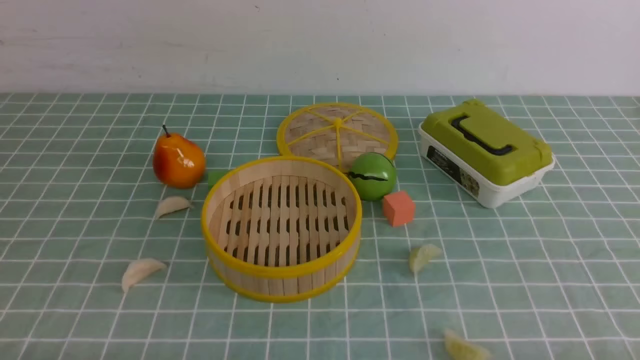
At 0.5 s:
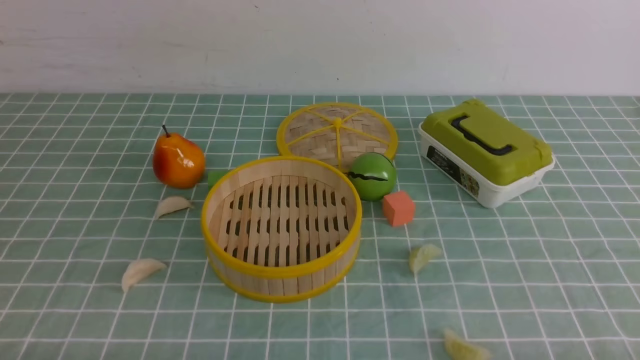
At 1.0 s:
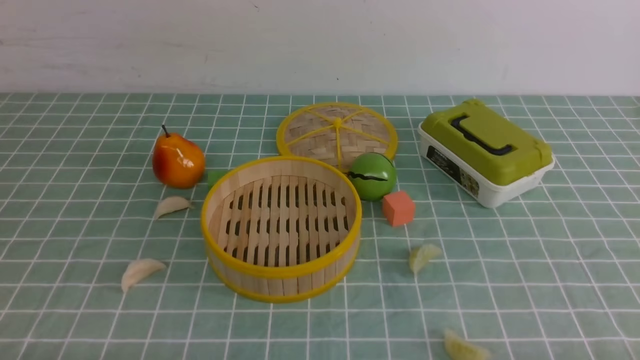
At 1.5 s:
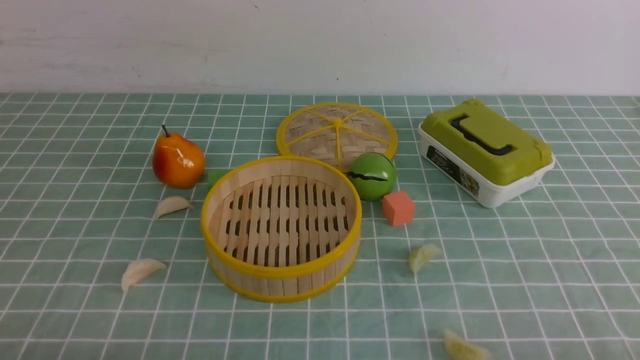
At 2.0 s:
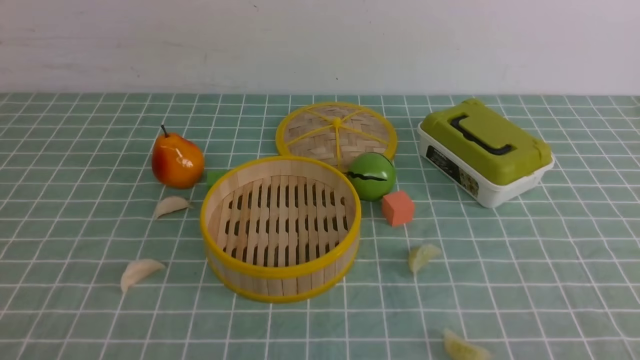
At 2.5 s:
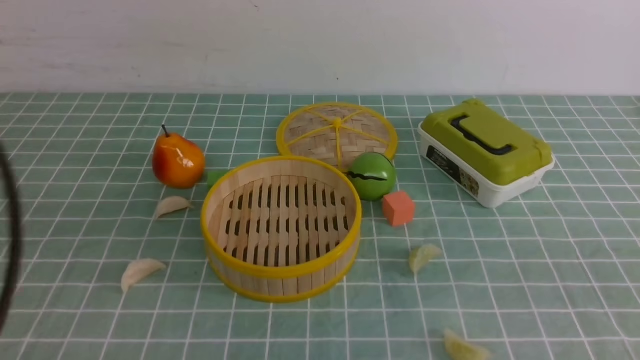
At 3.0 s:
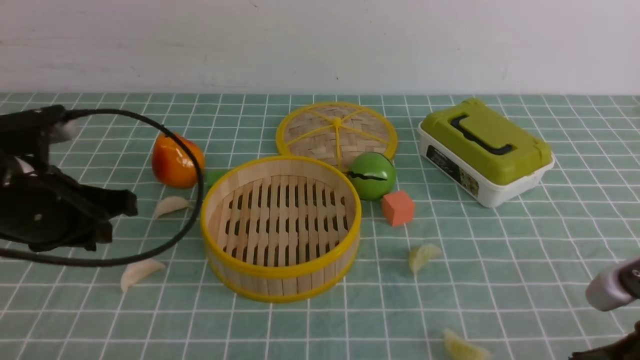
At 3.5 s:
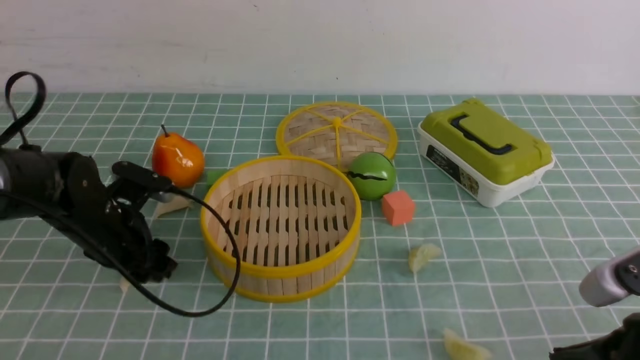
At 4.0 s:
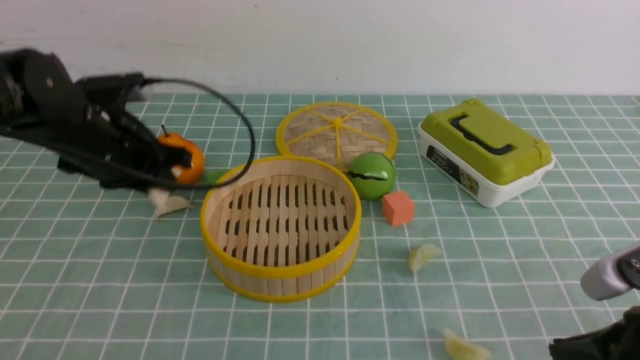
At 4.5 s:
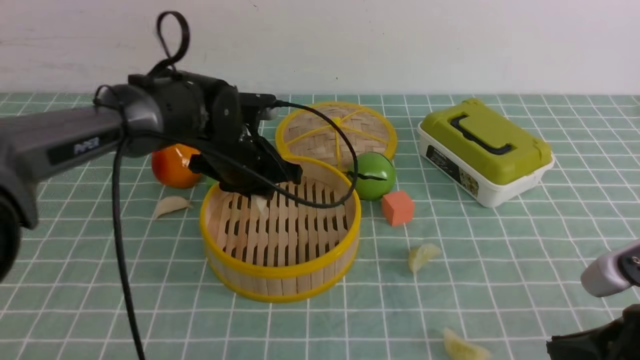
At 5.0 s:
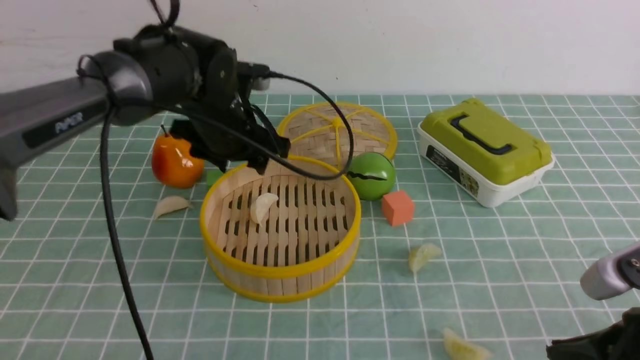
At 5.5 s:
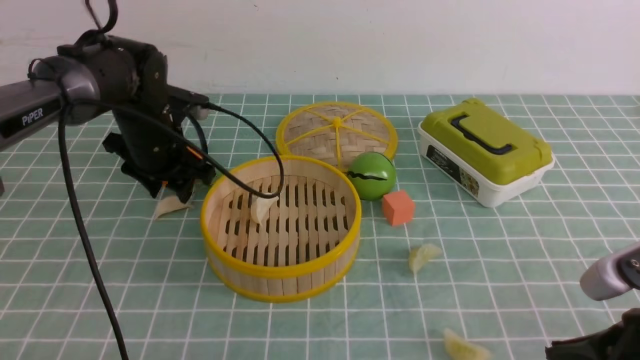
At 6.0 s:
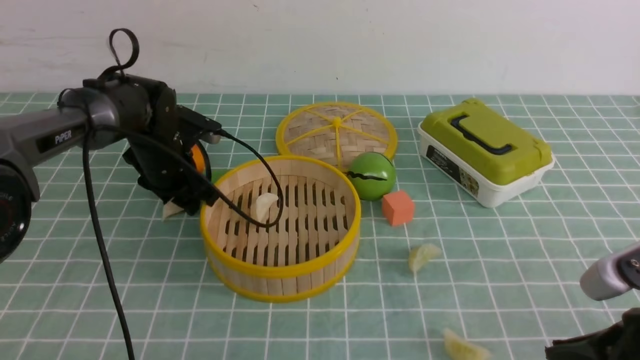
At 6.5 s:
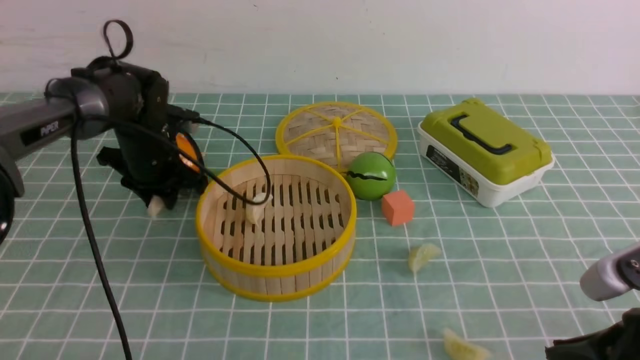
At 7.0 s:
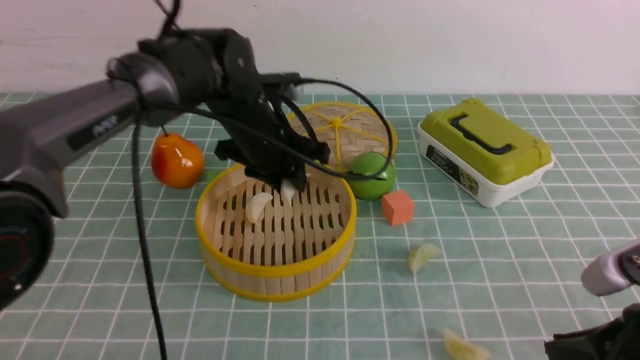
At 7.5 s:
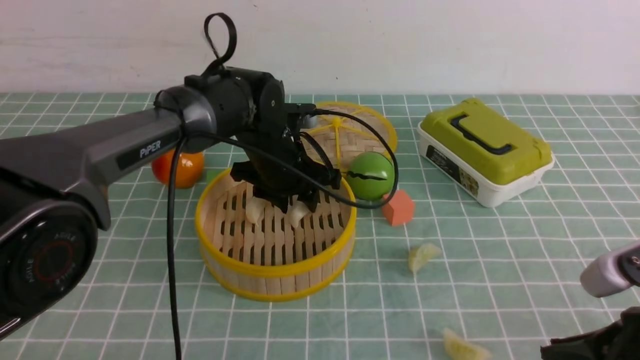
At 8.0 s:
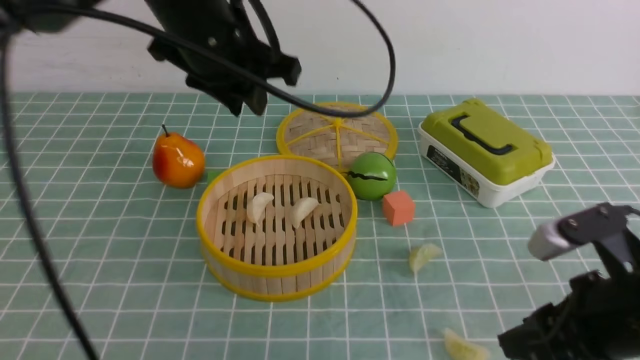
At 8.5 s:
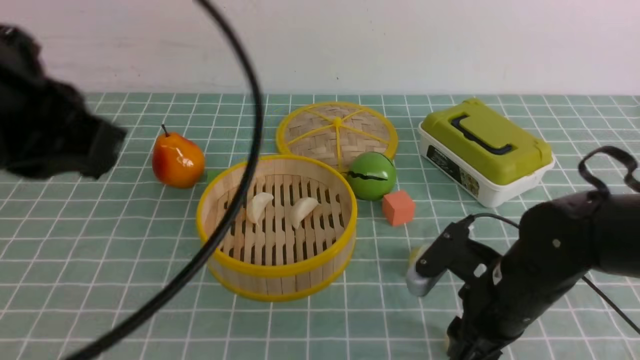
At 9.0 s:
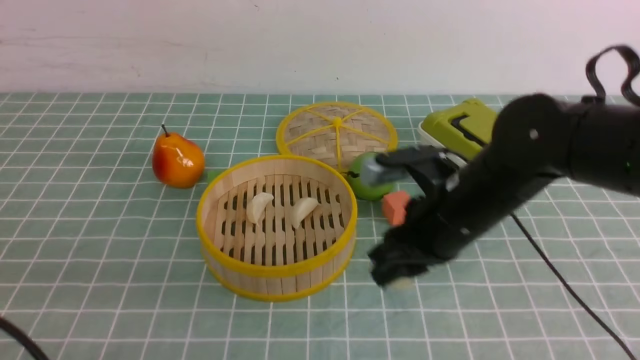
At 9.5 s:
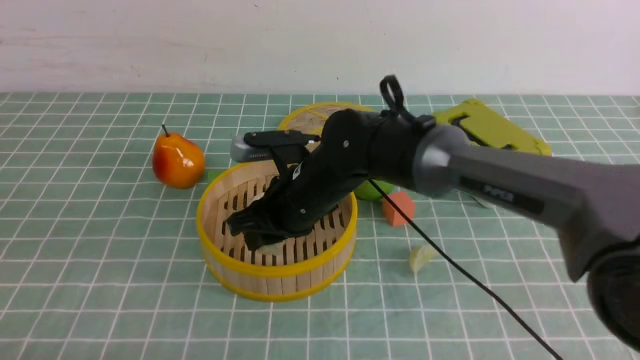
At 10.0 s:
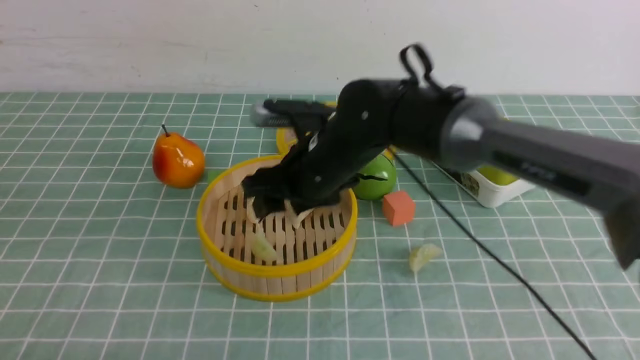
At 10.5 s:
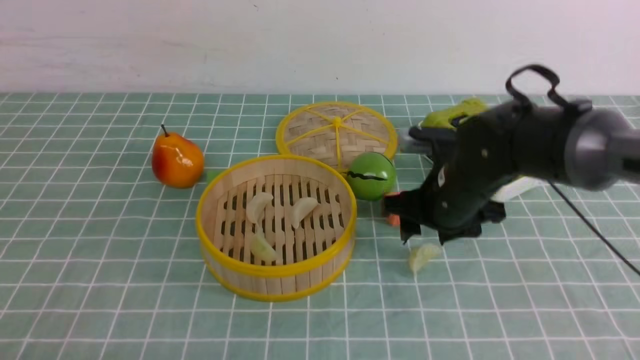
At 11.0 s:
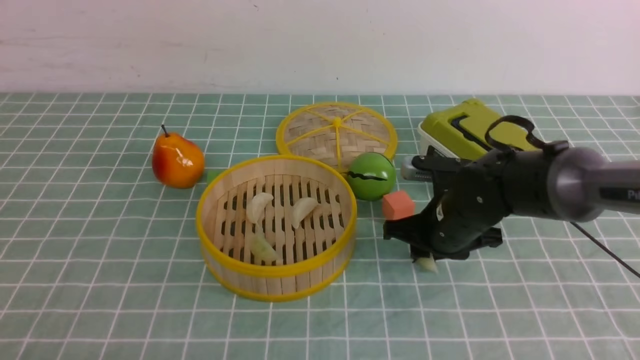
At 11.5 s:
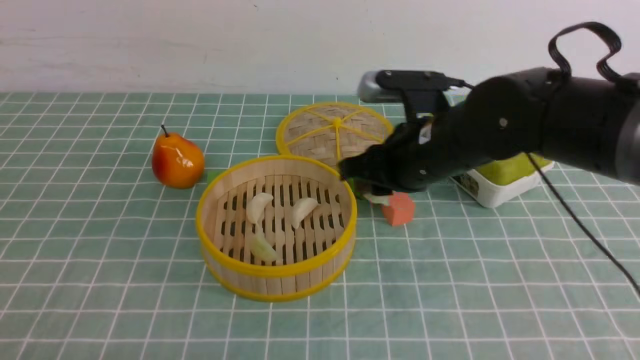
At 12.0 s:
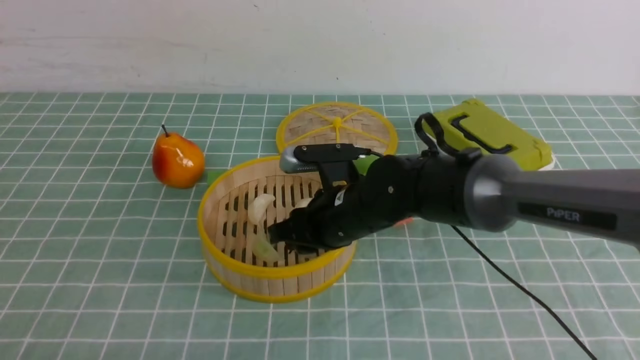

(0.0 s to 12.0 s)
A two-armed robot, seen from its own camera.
Task of the whole recording: put the dumplings into the steamer on the table with the blue tablecloth.
Step, 0.0 s - 3.5 s: use the left arm to grab a dumpling.
Step, 4.0 s - 5.0 s: use the left arm to put the dumpling into the steamer.
Step, 5.5 s - 6.0 s: use the left arm to grab a dumpling.
Step, 6.5 s - 7.5 s: use the left arm to put the dumpling into the steamer.
Step, 8.0 s - 8.5 s: use the right arm to grab a dumpling.
Step, 9.0 s - 10.0 s: use the right arm to put the dumpling into the steamer.
Step, 10.5 s - 11.0 s: use the right arm to grab a dumpling.
2.0 s - 4.0 s: The right gripper travels forward and to the left by about 10 cm. The left gripper heads forward, covering roughly 35 cm, and opens, then closes again.
4.0 s - 6.0 s: The left gripper goes some 15 cm forward and downward.
6.0 s - 8.0 s: The left gripper travels upward, backward and to the right by some 25 cm, while the right gripper changes place by about 5 cm, and opens its fingers.
8.0 s - 10.0 s: The right gripper goes some 30 cm to the left and forward; the left gripper shifts approximately 35 cm backward and to the left, and closes its fingers.
10.0 s - 12.0 s: The right gripper reaches approximately 10 cm to the right, then returns.

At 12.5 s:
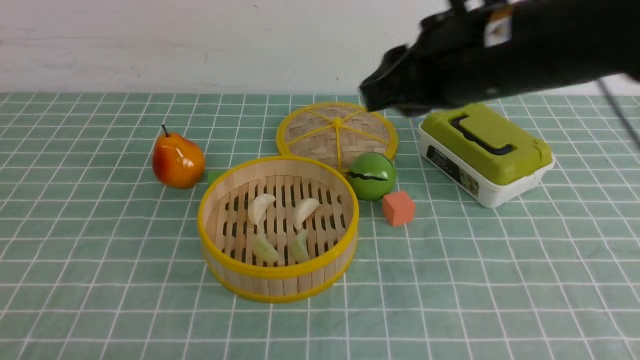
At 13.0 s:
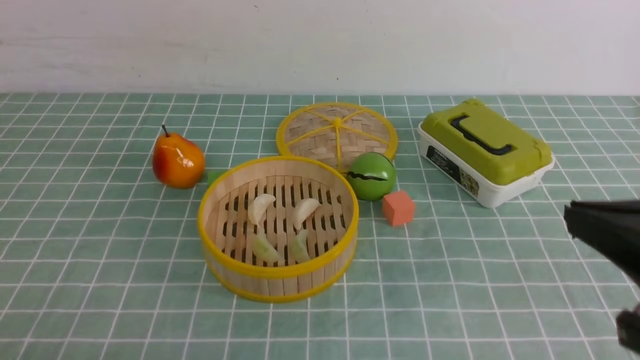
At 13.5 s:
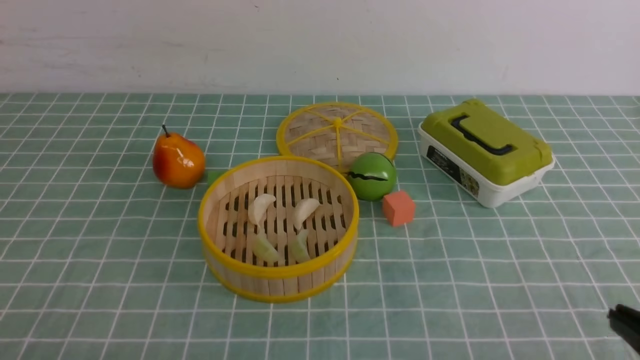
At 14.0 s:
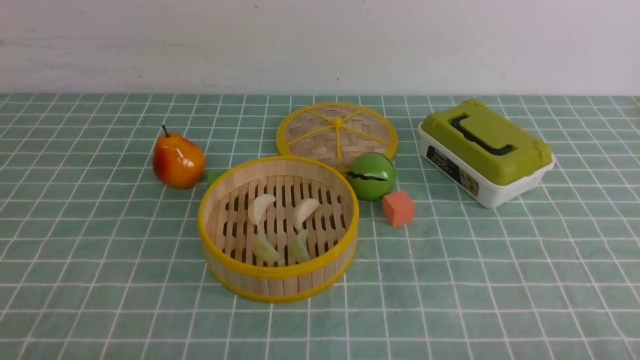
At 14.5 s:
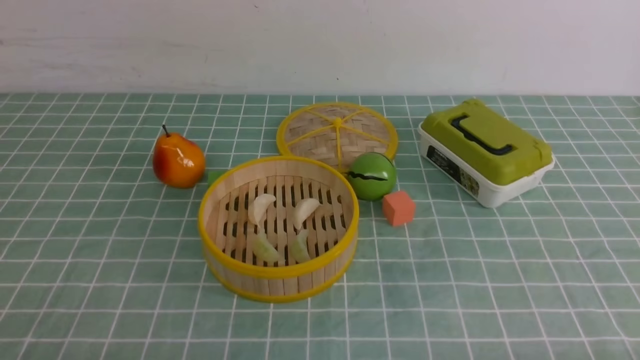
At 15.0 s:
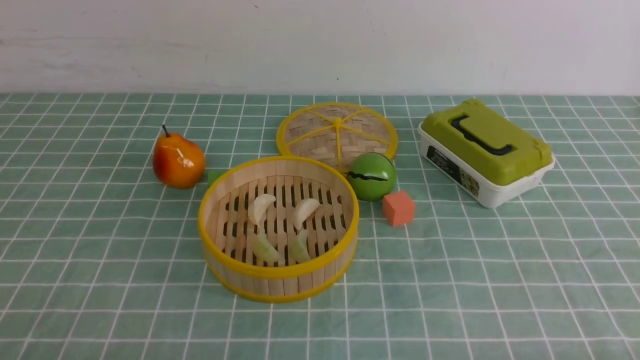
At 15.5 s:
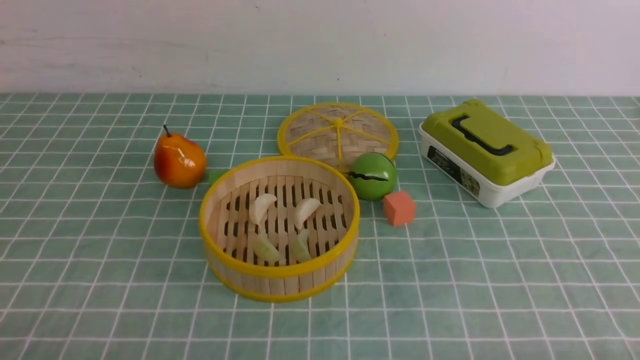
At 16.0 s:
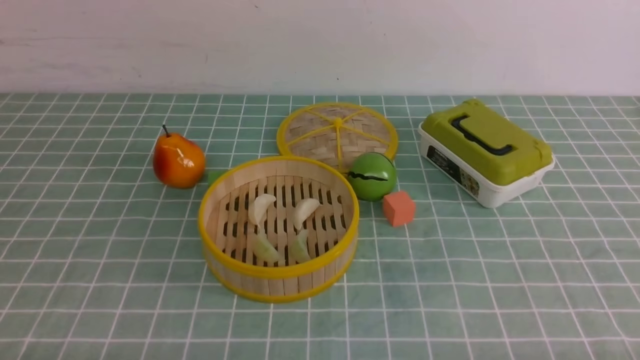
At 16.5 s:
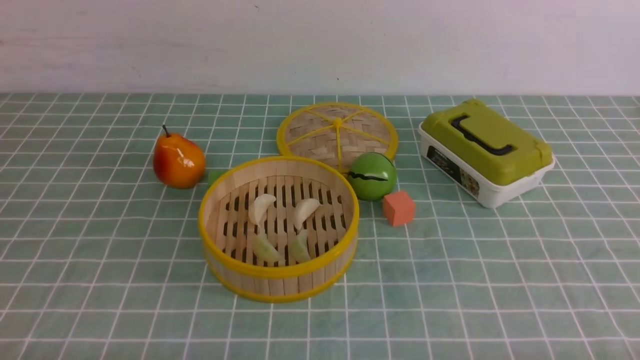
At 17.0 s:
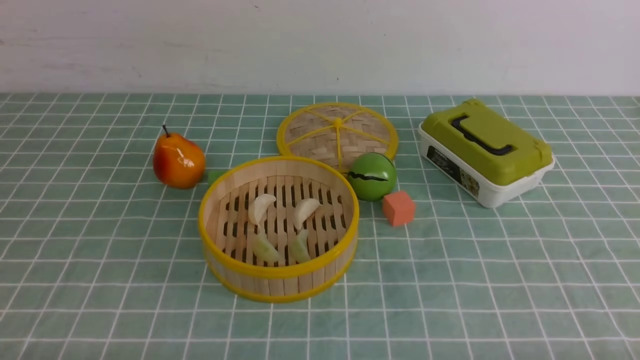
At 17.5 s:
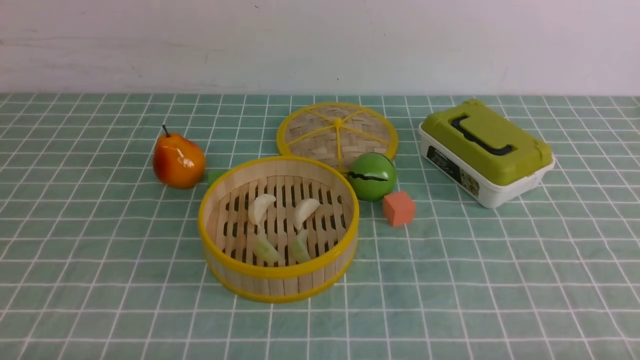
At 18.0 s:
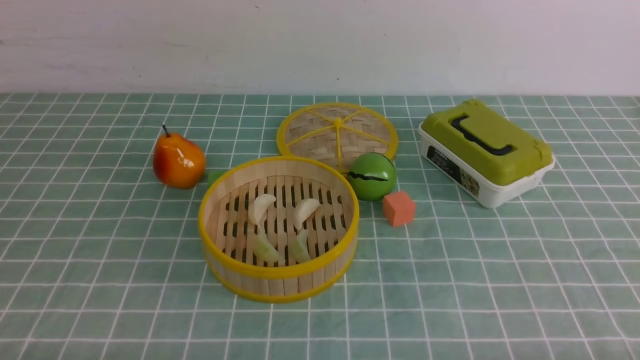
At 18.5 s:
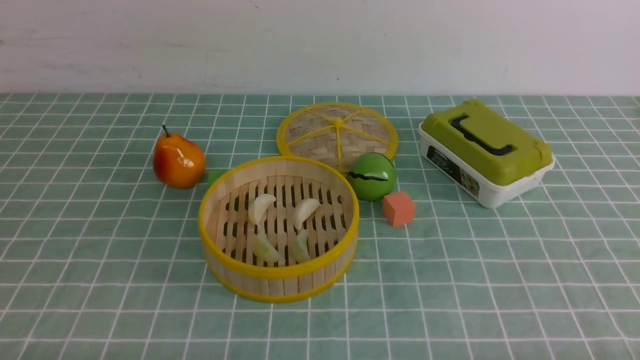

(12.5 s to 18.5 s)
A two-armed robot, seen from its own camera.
Task of the whole recording: put the dumplings into the steamer on the table with the blue tablecloth.
12.5 s - 14.5 s: The right gripper goes approximately 35 cm downward, backward and to the right, and closes.
16.5 s - 18.5 s: Both grippers stay put.

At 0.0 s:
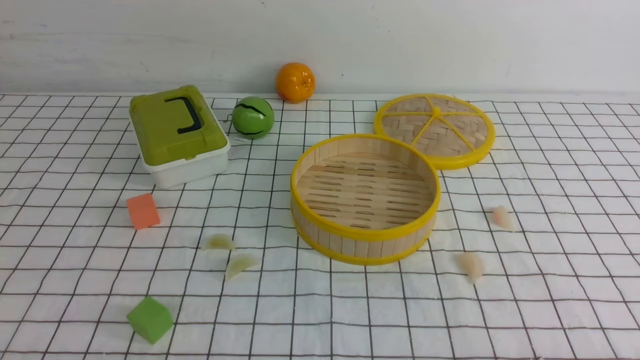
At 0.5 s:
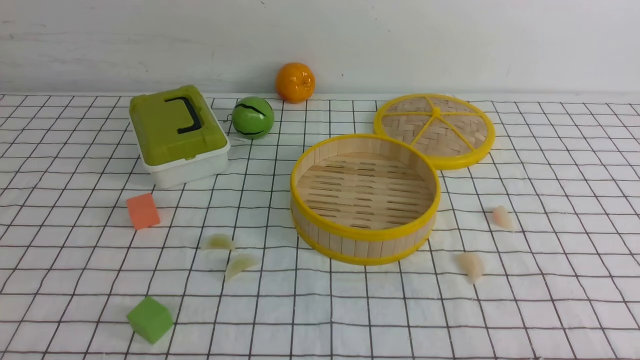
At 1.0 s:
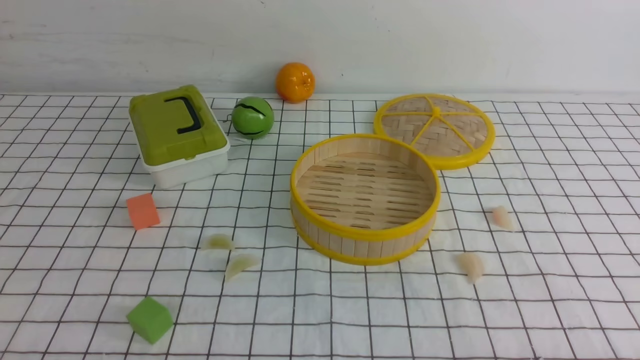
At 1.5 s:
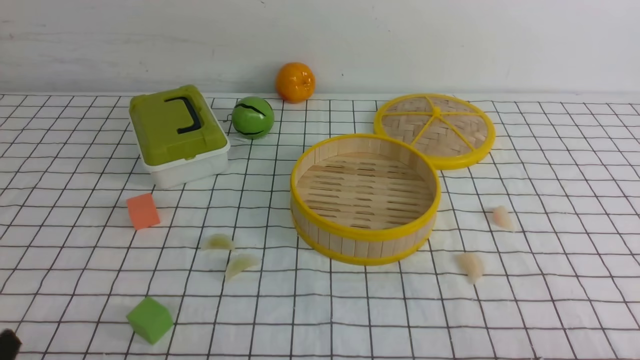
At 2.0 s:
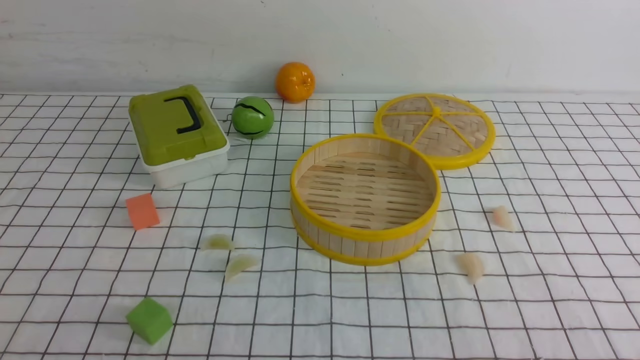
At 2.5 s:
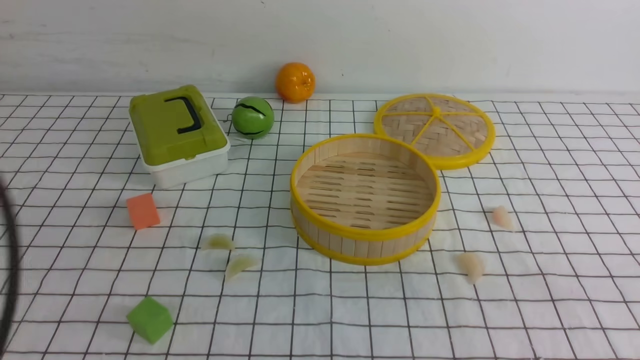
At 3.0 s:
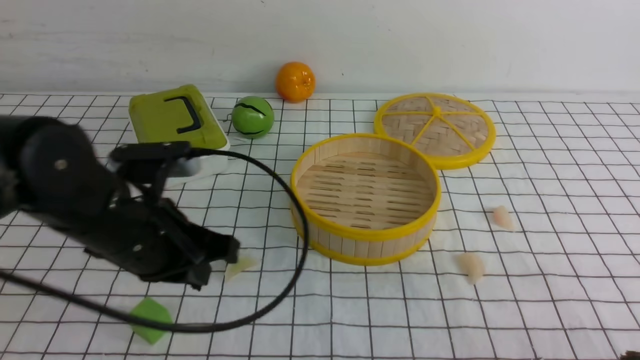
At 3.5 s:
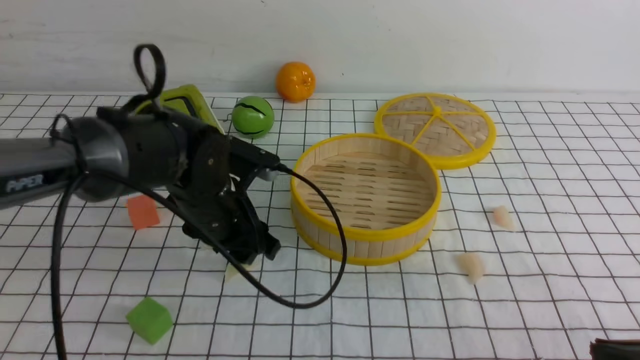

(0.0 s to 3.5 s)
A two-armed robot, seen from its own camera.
Task of the whole recording: put the dumplings into the steamer on the table with the white tablecloth.
2.0 s - 3.5 s: The right gripper moves forward, roughly 10 cm, and closes. The left gripper shifts approximately 35 cm forward and to the right, and closes, then reopens.
